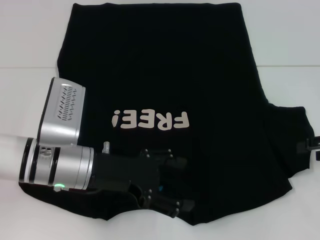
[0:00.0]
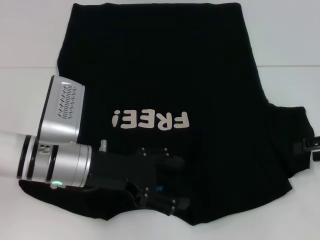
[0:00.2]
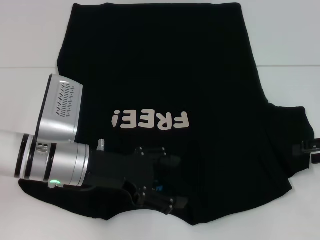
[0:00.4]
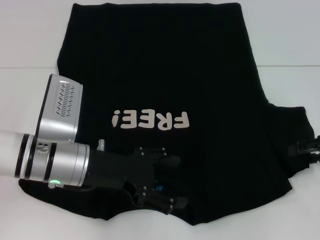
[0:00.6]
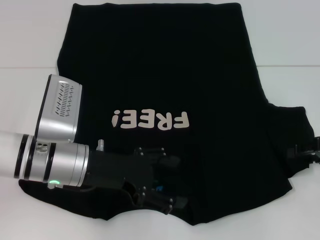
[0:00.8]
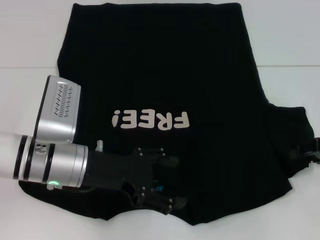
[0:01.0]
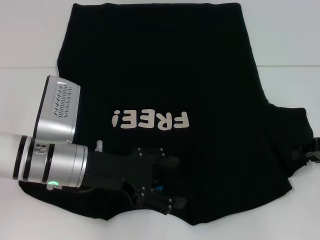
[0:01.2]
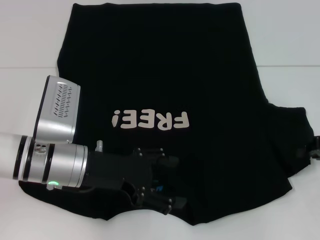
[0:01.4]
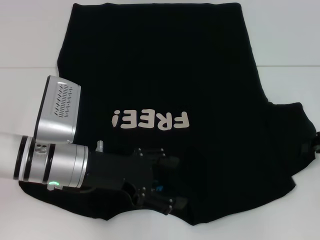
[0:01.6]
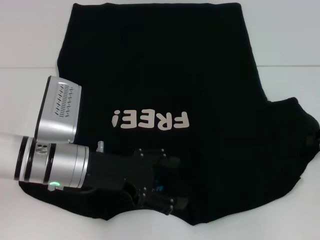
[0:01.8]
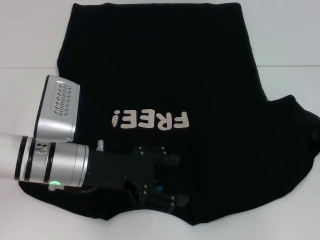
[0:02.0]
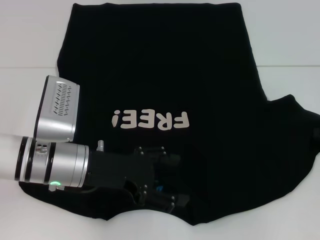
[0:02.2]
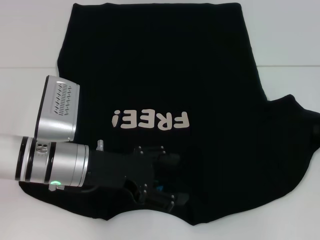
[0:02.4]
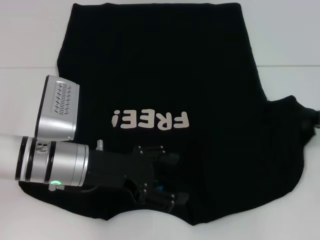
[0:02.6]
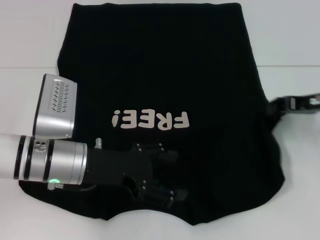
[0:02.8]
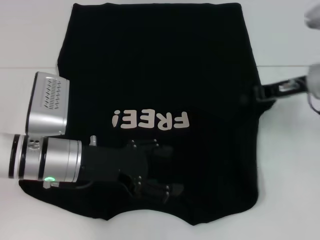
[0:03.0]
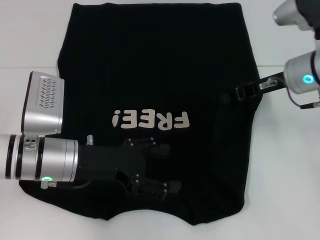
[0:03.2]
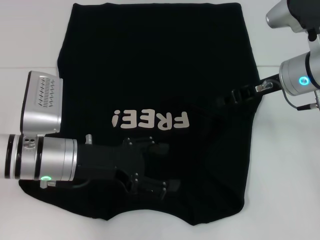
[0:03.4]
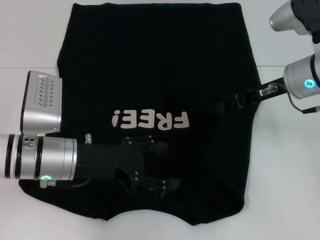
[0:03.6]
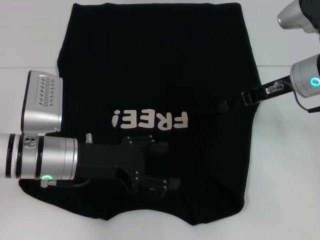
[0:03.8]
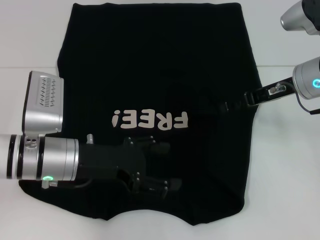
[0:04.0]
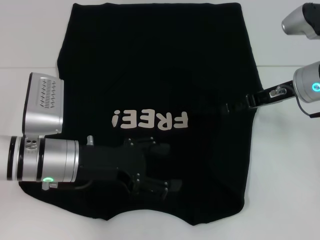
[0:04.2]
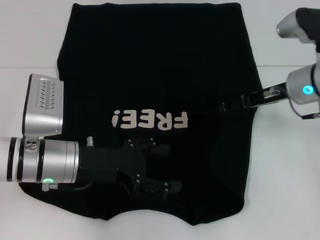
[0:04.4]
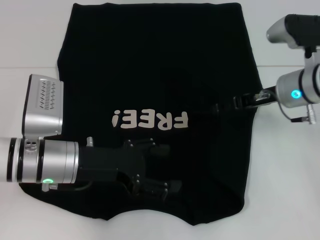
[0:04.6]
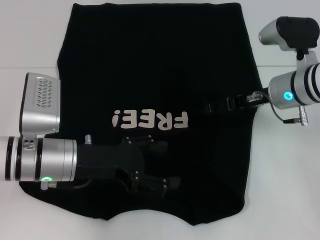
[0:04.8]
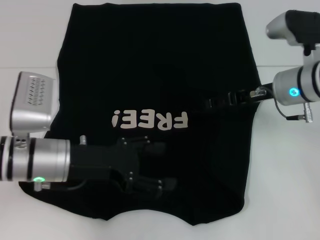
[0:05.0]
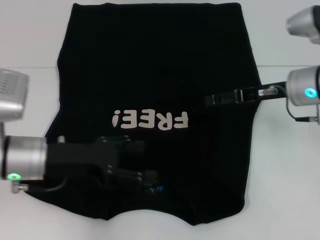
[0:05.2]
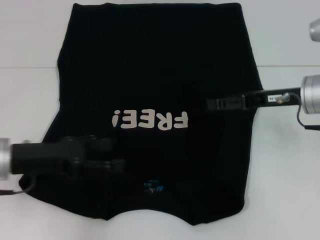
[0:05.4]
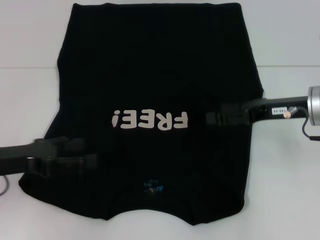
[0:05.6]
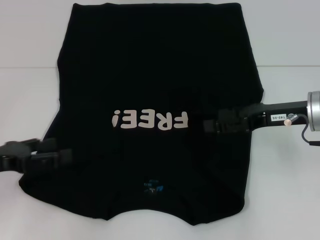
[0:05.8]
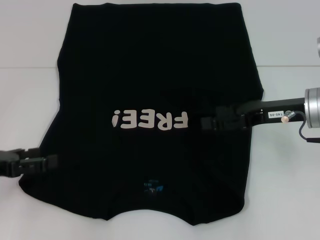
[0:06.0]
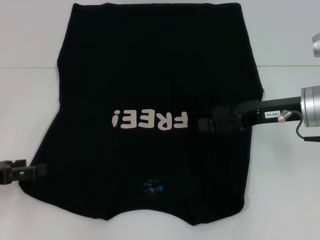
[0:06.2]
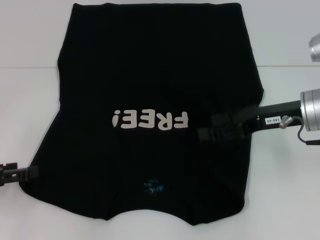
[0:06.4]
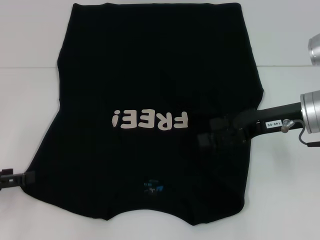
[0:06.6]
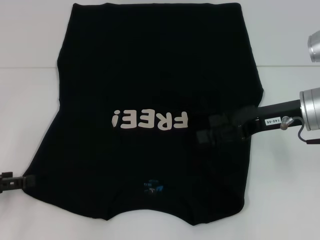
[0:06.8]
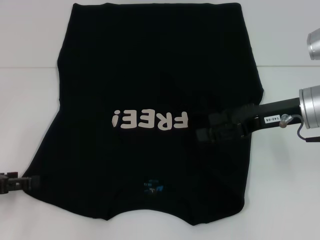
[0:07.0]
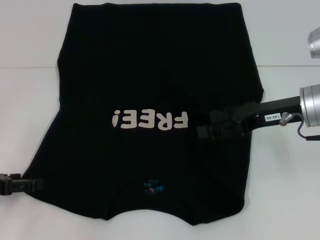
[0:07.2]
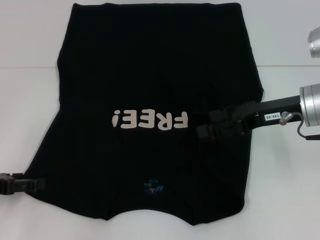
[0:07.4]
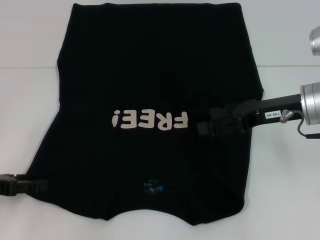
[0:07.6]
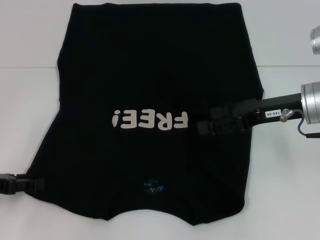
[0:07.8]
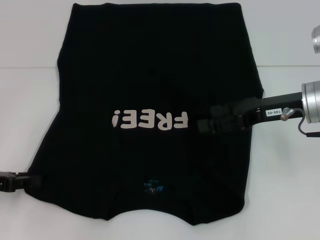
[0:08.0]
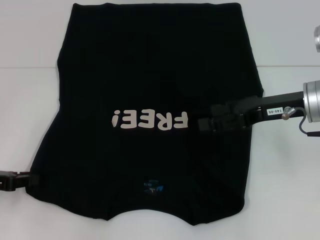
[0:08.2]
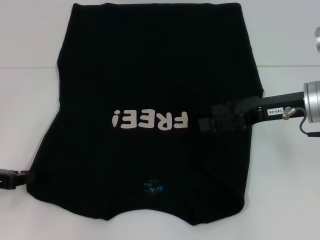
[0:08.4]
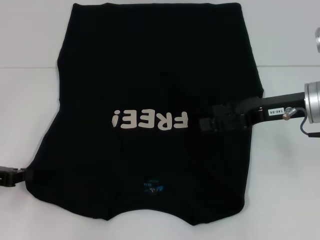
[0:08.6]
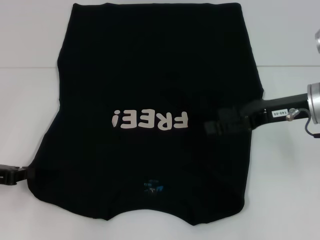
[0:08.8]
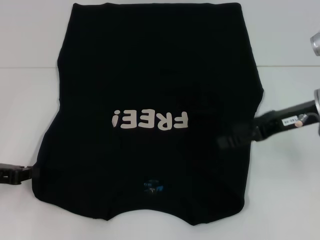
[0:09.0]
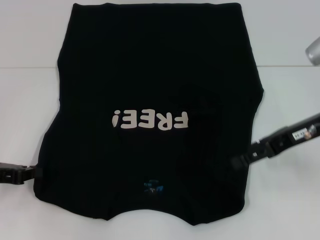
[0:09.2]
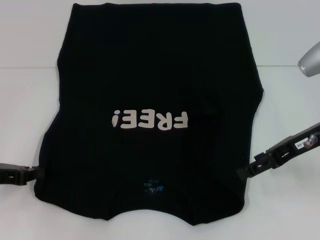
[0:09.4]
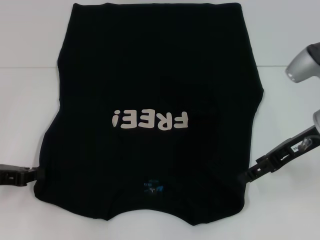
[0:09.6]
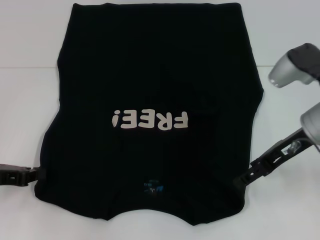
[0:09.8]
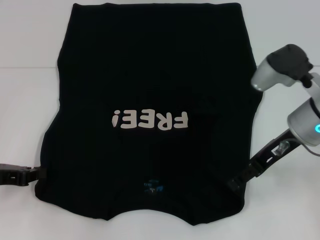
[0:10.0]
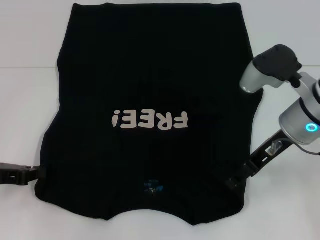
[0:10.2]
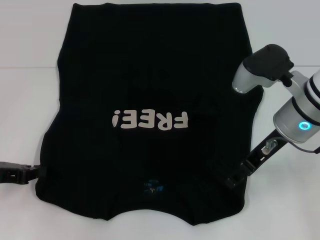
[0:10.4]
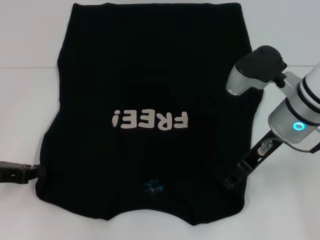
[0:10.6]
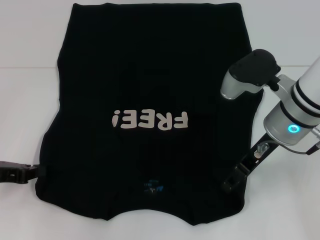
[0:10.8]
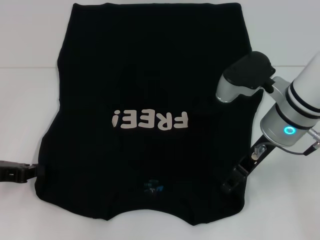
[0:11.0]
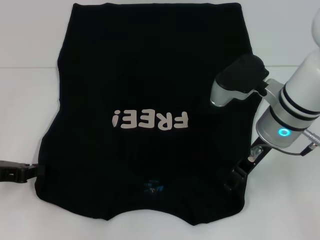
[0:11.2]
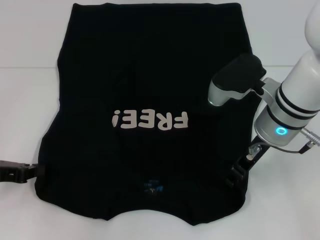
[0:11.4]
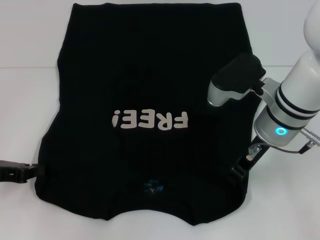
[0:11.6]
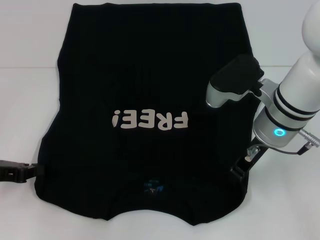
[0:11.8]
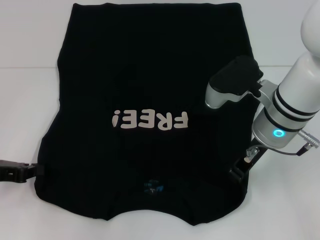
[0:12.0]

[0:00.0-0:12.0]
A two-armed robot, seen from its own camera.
Step, 0:00.0 to 0:03.4: Fold the bottom right sleeve with your right hand.
Step, 0:03.6 to 0:08.8: Grab the bottom left corner with your left hand.
0:00.0 to 0:01.6: The right gripper closes up.
0:01.6 to 0:03.0: The right gripper heads to the left, forward and upward, covering approximately 15 cm.
0:03.0 to 0:04.4: The right gripper opens.
0:04.4 to 0:06.0: The left gripper shifts approximately 15 cm to the left; the right gripper shifts roughly 5 cm backward.
0:06.0 to 0:07.6: The grippers move only a little.
0:07.6 to 0:09.0: The left gripper closes up.
0:09.0 to 0:10.4: The right gripper moves to the left, approximately 5 cm.
0:10.4 to 0:12.0: The right gripper closes.

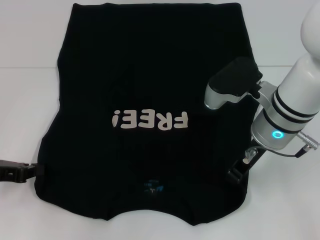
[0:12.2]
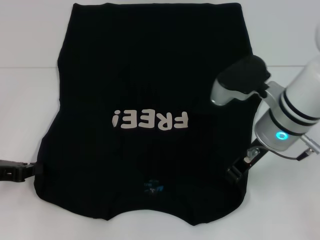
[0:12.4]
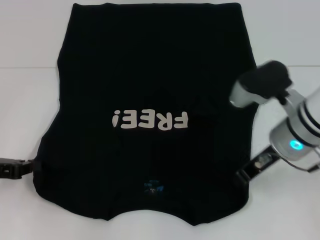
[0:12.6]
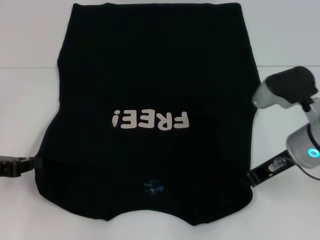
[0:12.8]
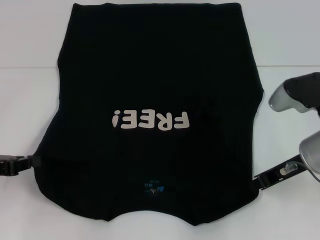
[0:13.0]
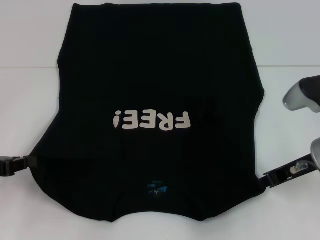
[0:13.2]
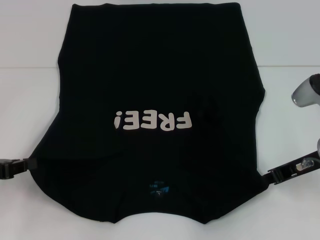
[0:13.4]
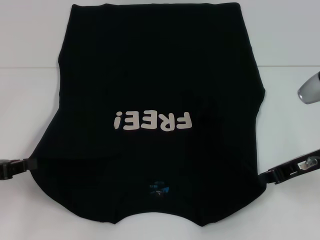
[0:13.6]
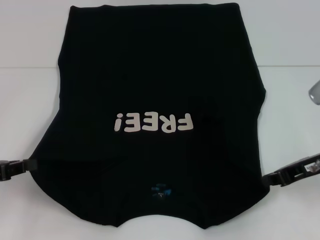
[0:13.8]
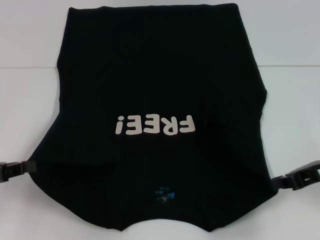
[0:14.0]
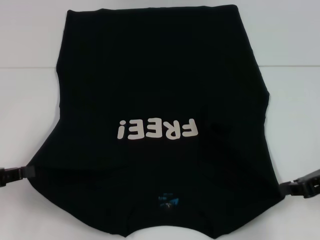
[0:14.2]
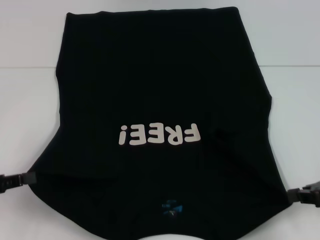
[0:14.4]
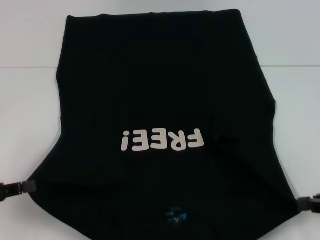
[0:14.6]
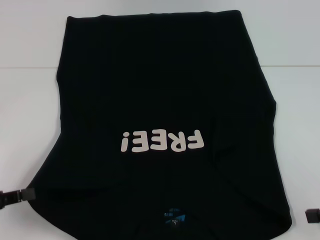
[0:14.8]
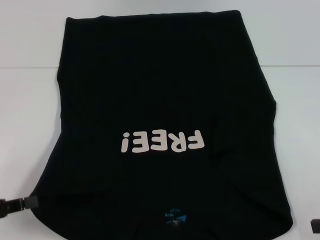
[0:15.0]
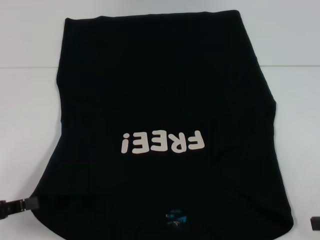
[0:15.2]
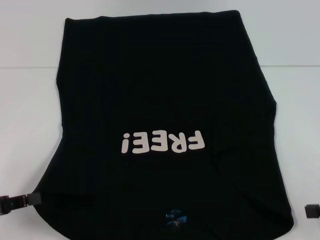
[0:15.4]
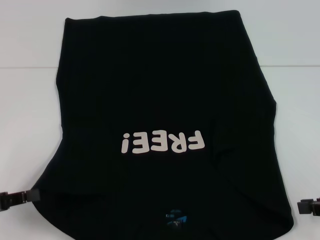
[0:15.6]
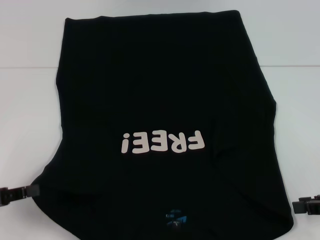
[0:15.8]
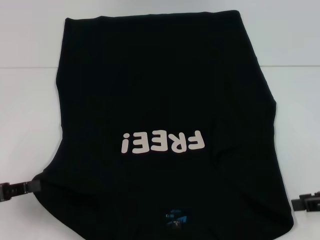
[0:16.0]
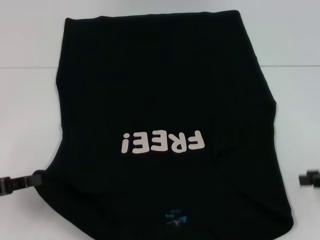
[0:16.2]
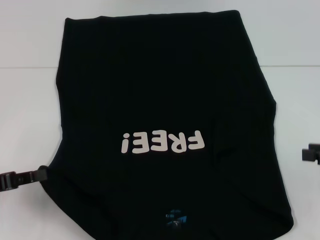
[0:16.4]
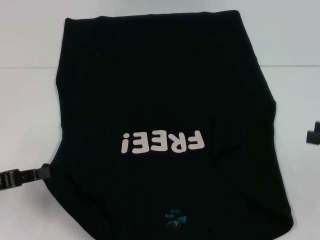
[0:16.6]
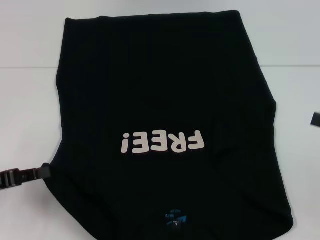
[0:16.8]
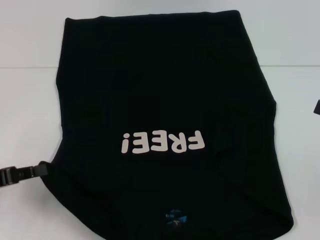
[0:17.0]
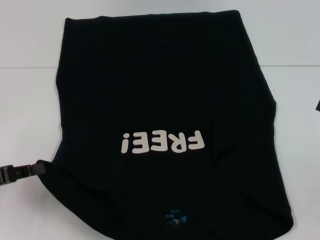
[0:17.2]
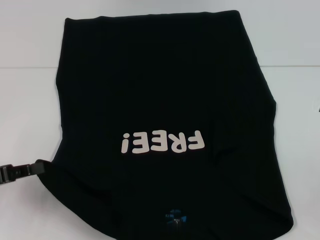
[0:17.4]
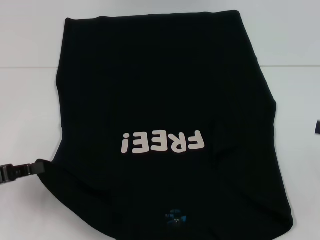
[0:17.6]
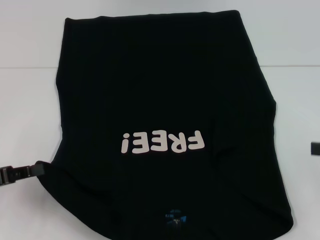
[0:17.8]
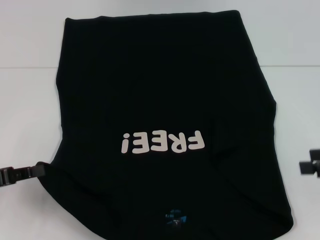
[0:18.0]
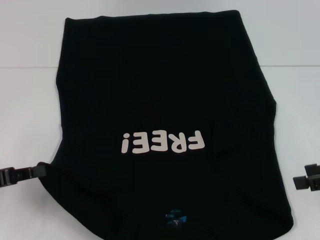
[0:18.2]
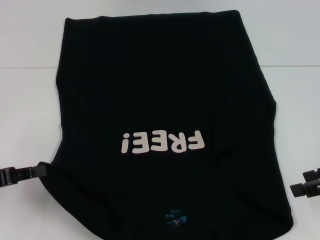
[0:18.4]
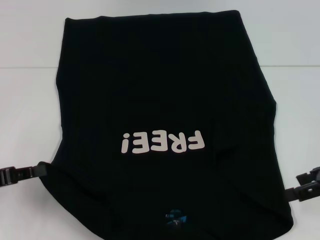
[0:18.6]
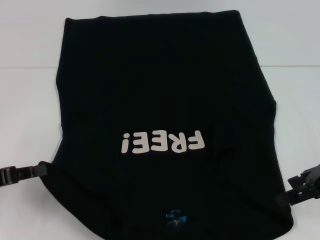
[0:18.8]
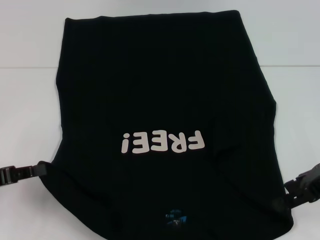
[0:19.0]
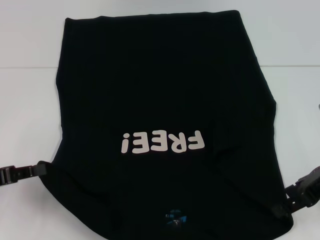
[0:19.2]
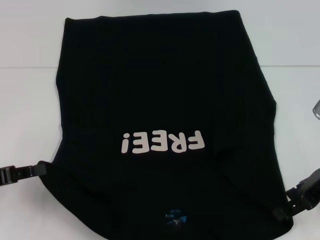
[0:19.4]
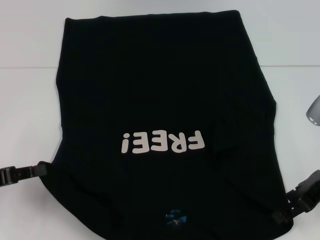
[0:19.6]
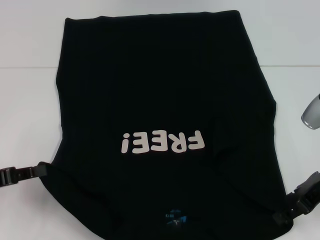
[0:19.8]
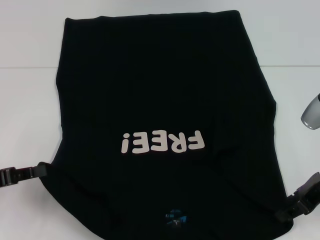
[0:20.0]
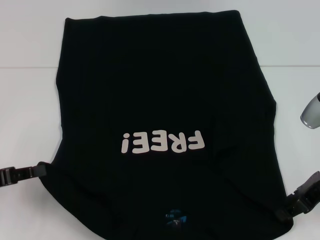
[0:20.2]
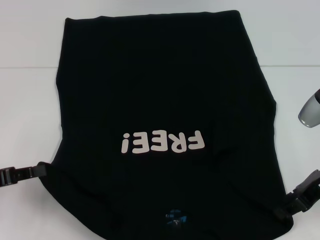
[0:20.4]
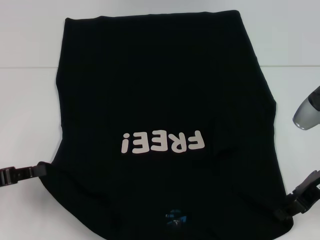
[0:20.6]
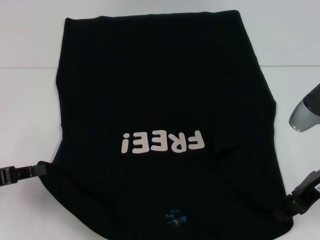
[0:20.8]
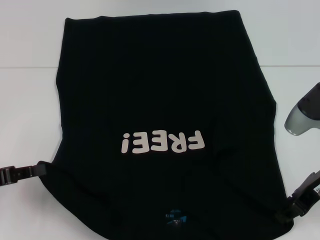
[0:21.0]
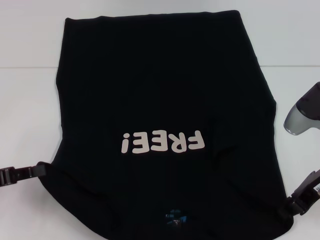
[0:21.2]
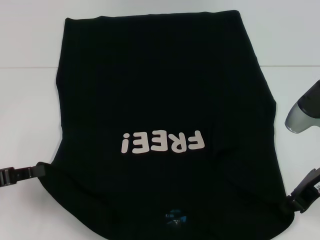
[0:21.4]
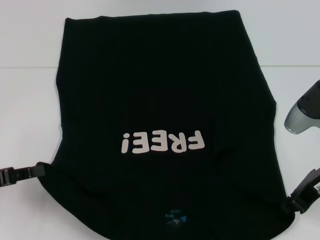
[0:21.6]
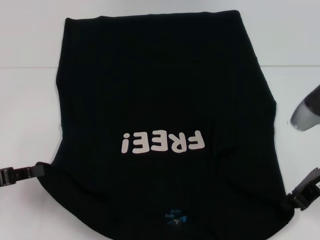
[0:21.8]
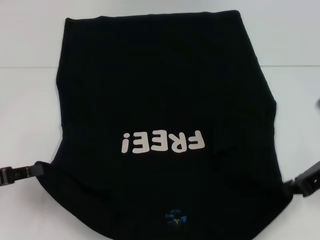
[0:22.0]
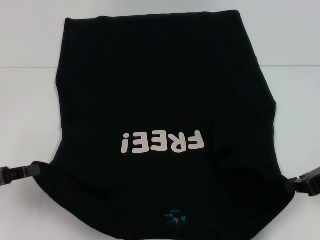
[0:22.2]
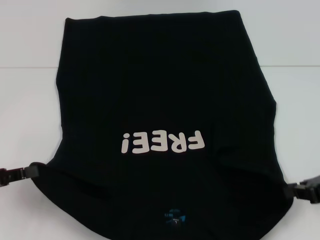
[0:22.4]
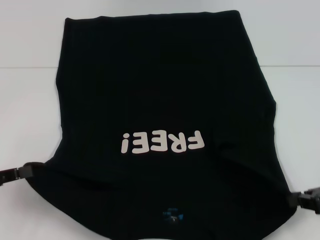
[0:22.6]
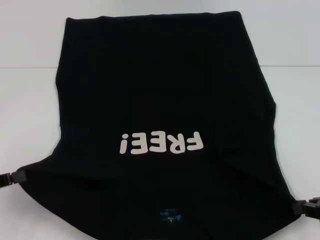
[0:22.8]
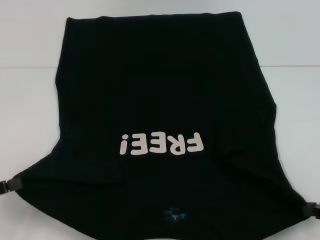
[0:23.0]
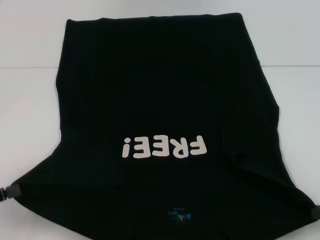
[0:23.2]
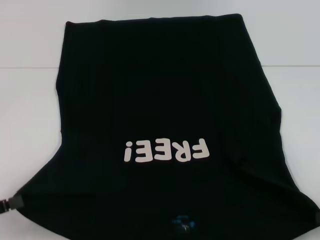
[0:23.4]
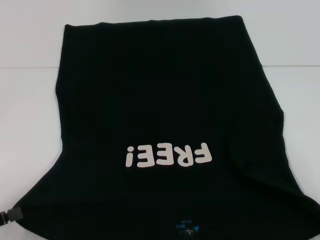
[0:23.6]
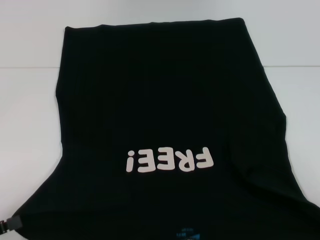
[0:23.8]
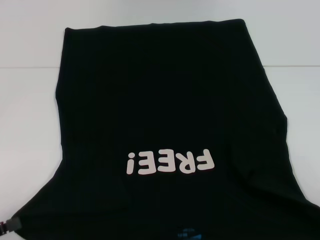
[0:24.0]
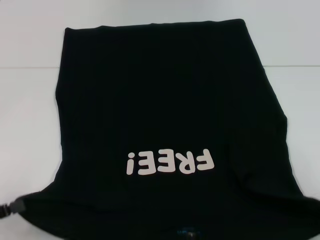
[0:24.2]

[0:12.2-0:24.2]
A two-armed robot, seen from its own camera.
0:12.2 to 0:13.8: The right gripper moves to the right, about 10 cm.
0:13.8 to 0:15.2: The left gripper is displaced backward by some 5 cm; the right gripper travels backward and to the right by some 15 cm.
0:18.2 to 0:19.8: The right gripper goes approximately 10 cm to the left.
0:19.8 to 0:21.2: The right gripper closes up.
0:21.2 to 0:22.6: The right gripper is displaced to the right and backward by approximately 10 cm.
0:22.6 to 0:24.2: The right gripper shifts approximately 10 cm to the right and backward, while the left gripper goes some 5 cm backward.
